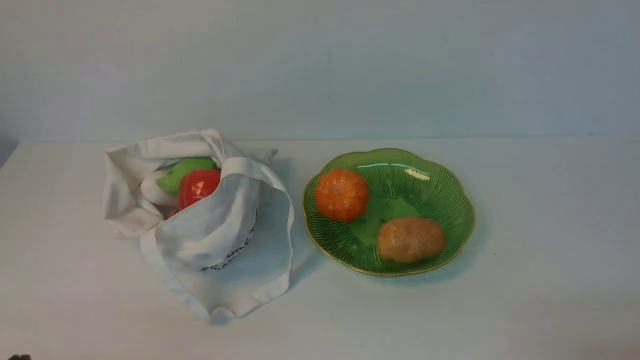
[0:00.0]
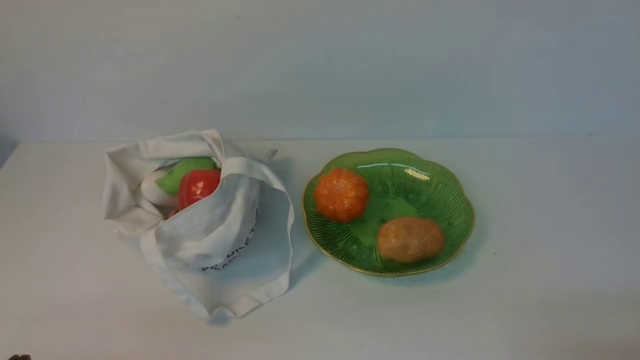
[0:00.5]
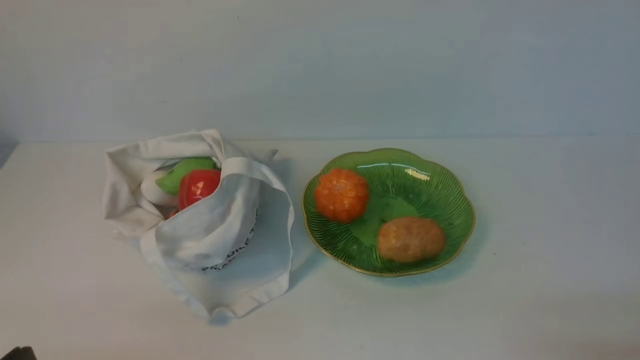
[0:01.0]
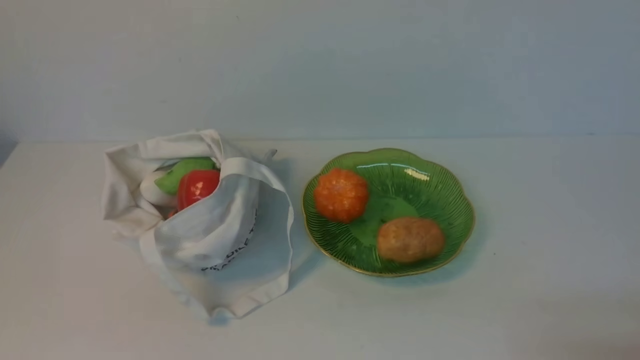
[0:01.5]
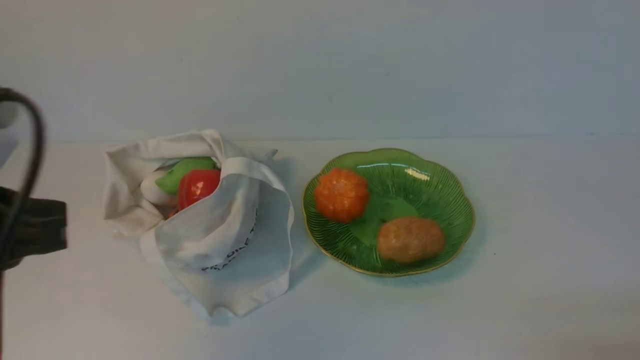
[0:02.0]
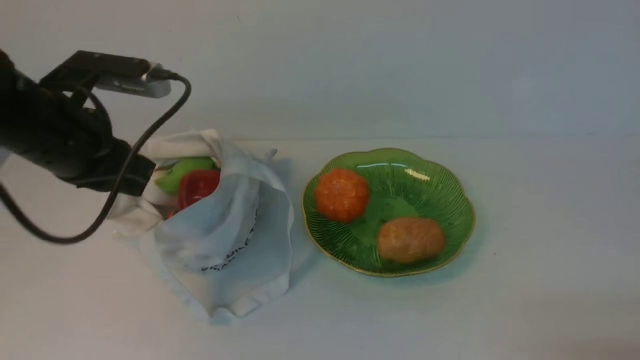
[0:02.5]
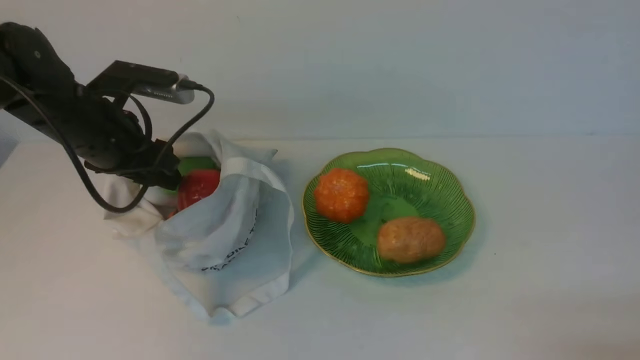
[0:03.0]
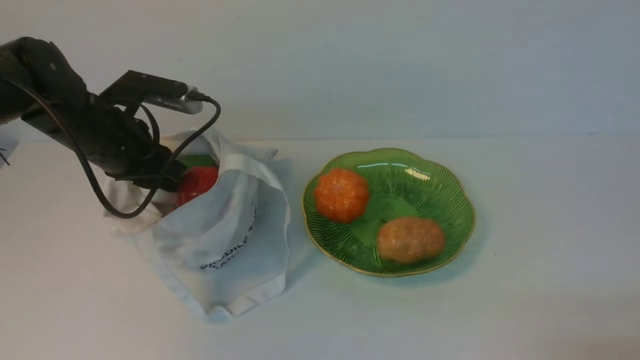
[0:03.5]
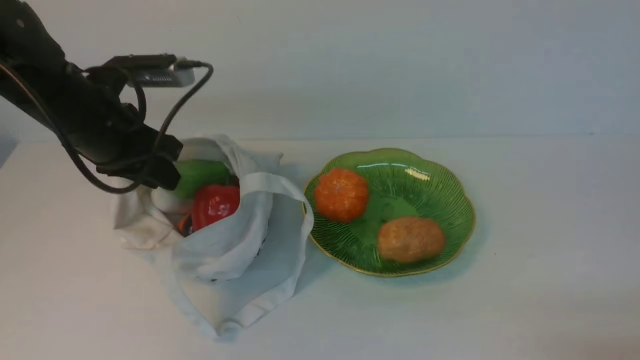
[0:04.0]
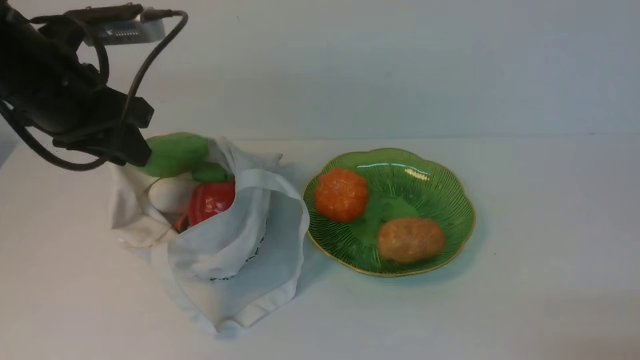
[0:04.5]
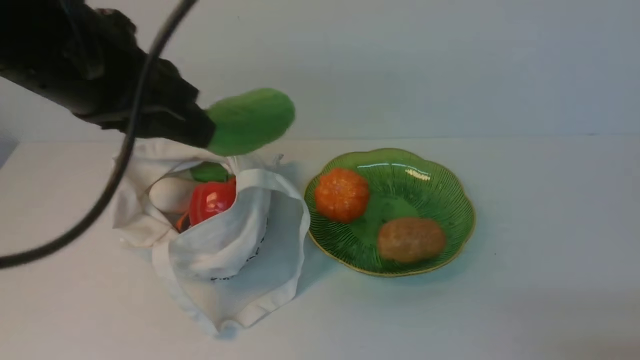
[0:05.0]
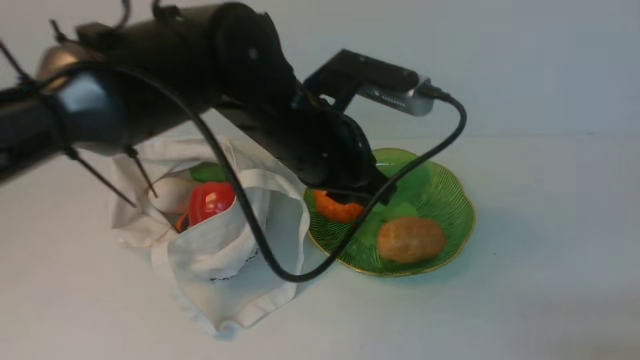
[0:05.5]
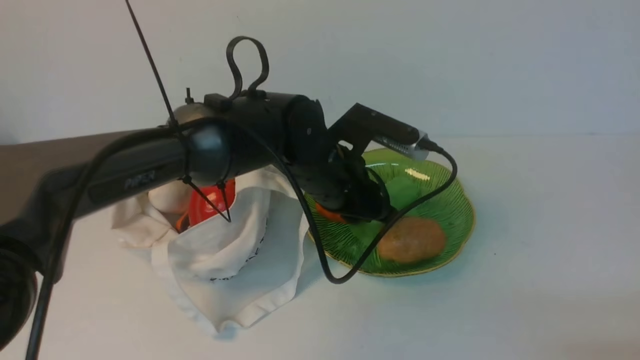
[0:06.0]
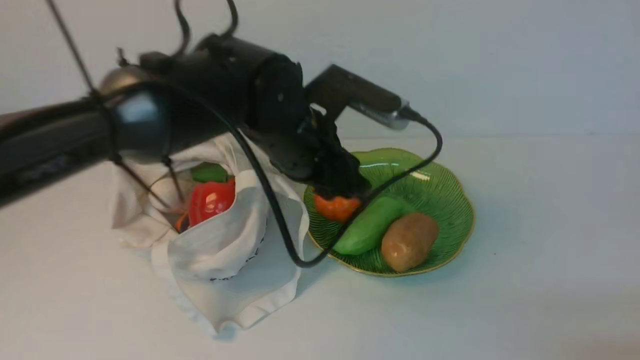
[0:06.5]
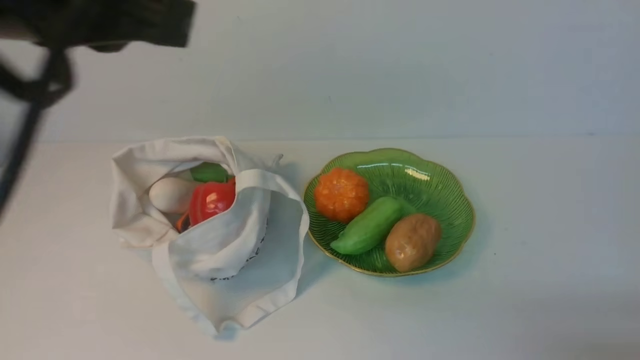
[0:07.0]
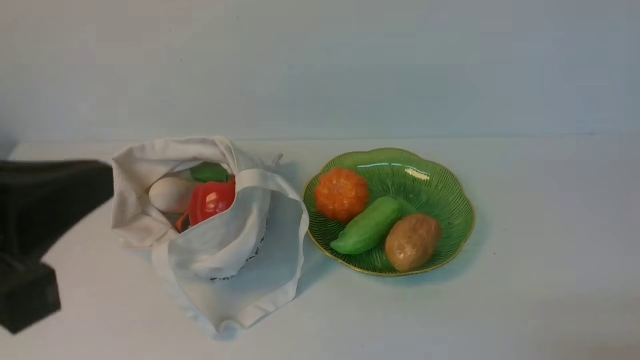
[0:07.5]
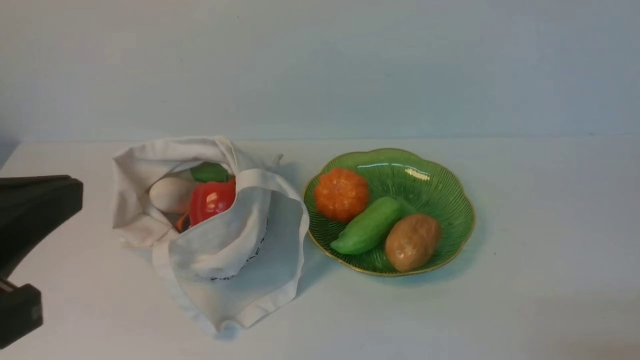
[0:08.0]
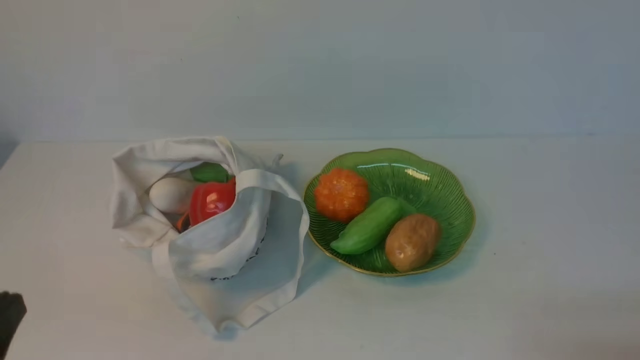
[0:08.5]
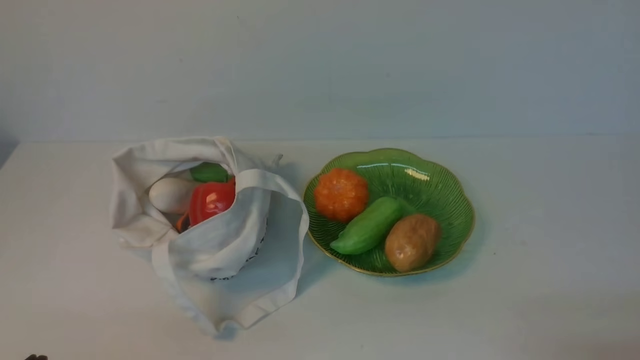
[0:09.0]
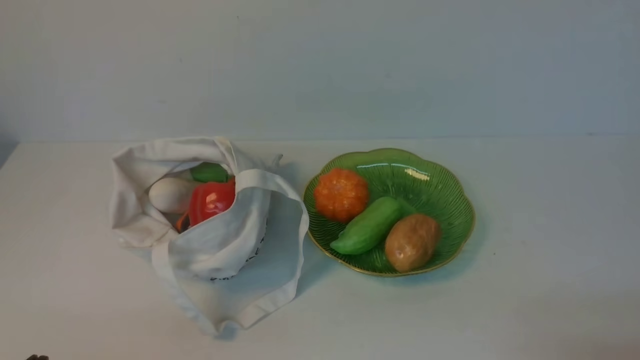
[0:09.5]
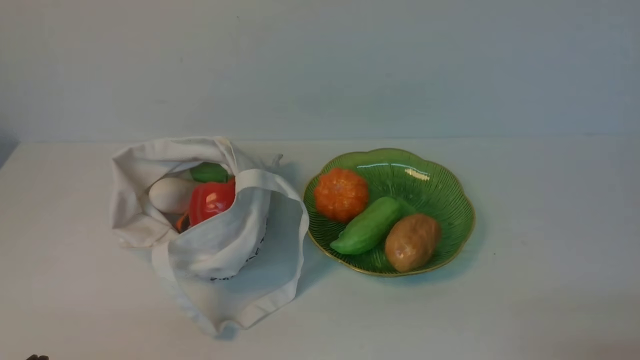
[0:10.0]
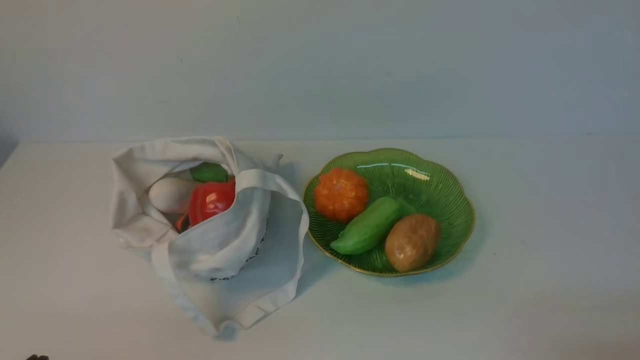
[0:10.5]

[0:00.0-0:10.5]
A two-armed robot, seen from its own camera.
Task of the whole recording: take vegetables from cloth bag on white table place on plate.
Step, 0:00.0 to 0:03.5: Grasp the bitter melon with left gripper.
Step, 0:04.0 to 0:06.5: Place the bitter melon on the plate with left gripper.
0:02.0 to 0:04.0: The left gripper is displaced forward by about 25 cm, and opens its fingers.
0:04.0 to 0:06.5: The left gripper travels to the right by about 20 cm, and opens.
0:06.5 to 0:08.5: The left gripper heads backward and to the left, covering about 35 cm, and closes up.

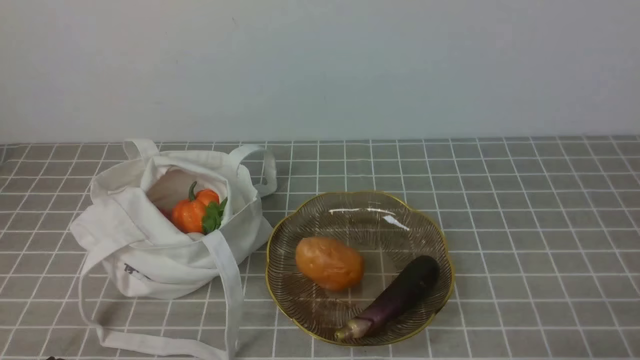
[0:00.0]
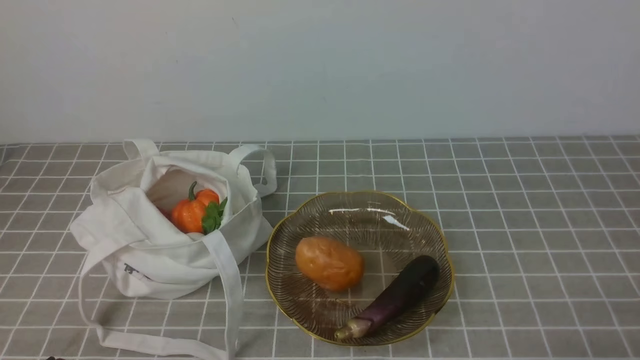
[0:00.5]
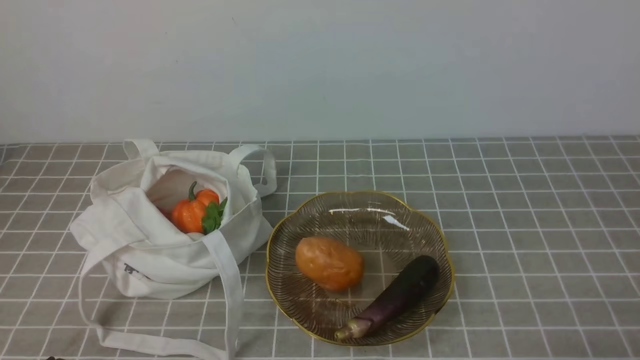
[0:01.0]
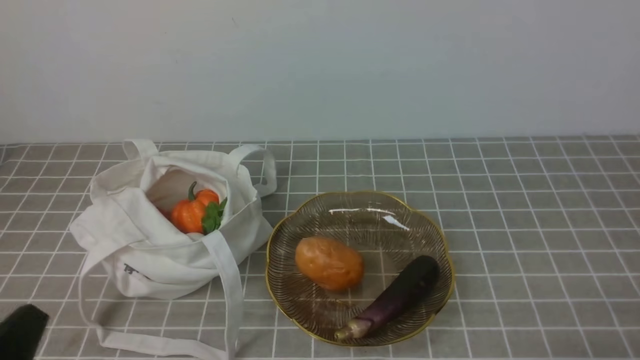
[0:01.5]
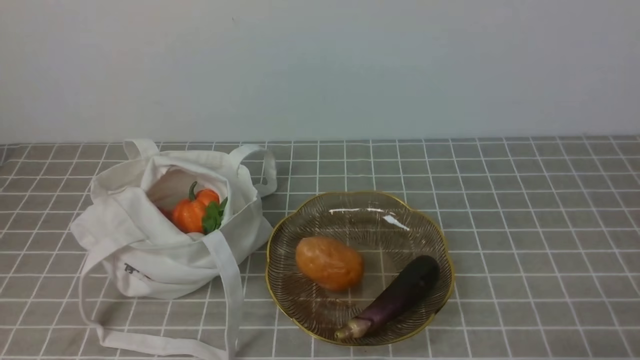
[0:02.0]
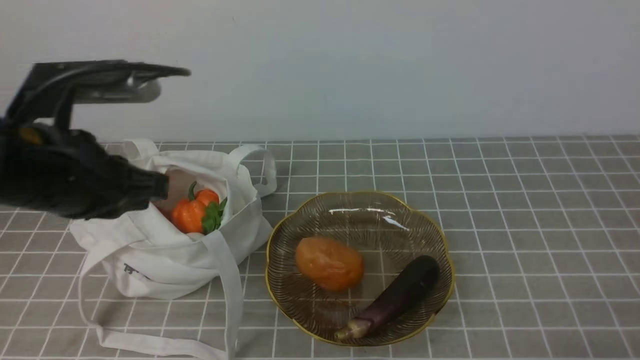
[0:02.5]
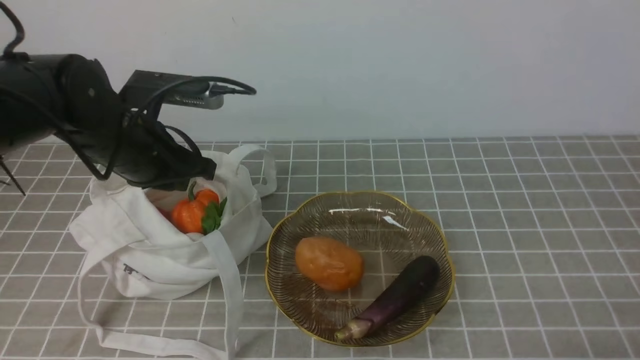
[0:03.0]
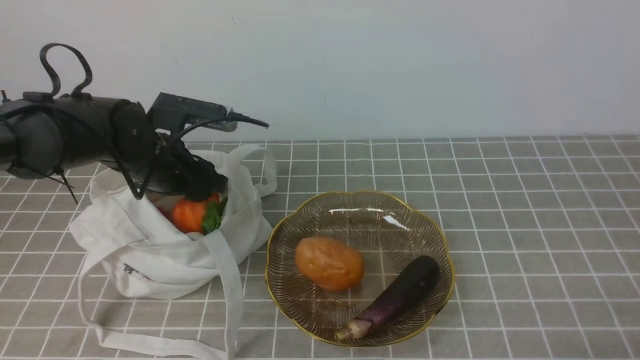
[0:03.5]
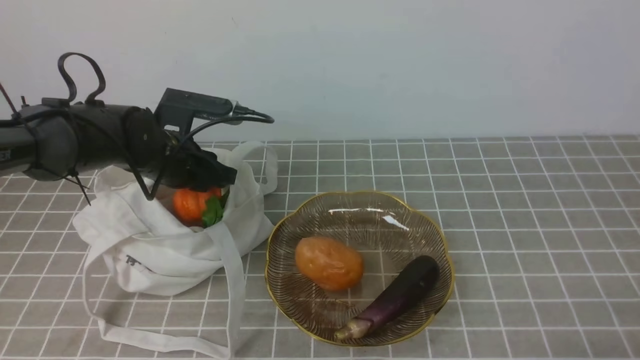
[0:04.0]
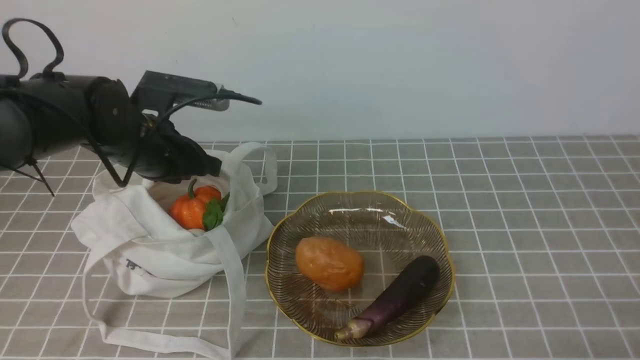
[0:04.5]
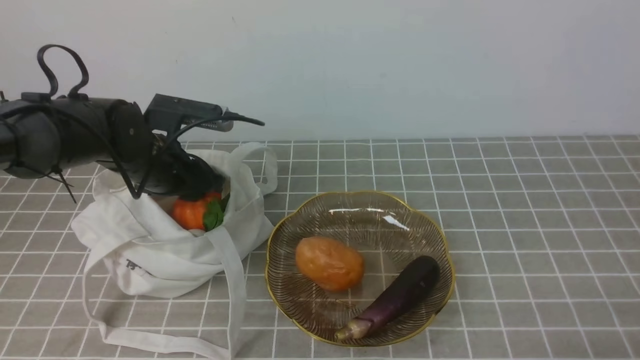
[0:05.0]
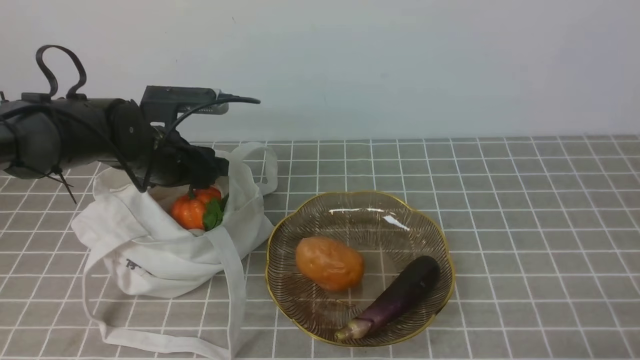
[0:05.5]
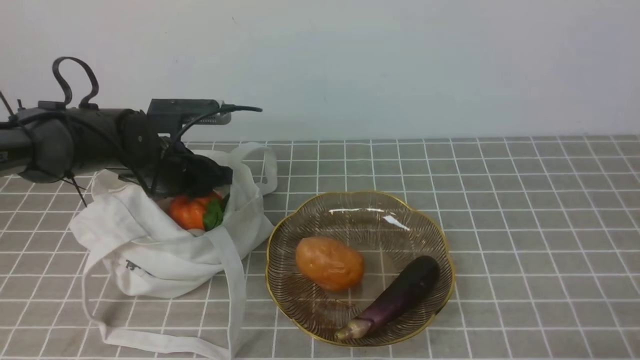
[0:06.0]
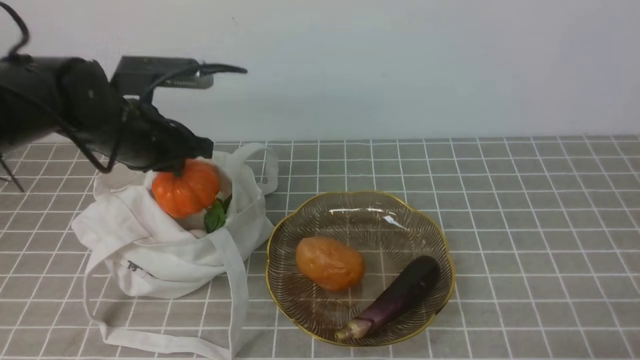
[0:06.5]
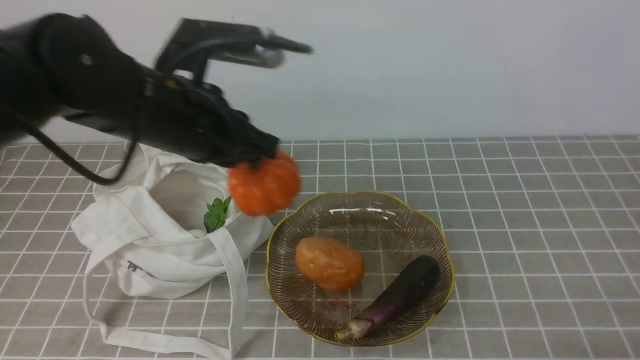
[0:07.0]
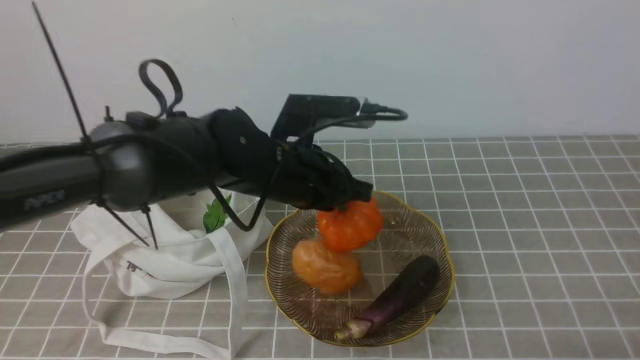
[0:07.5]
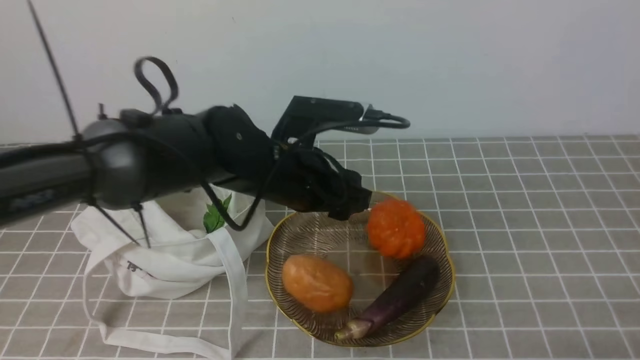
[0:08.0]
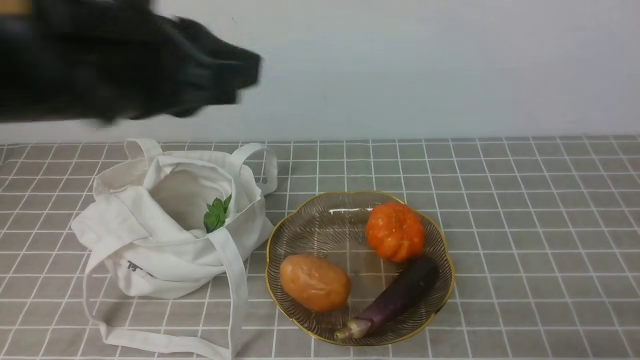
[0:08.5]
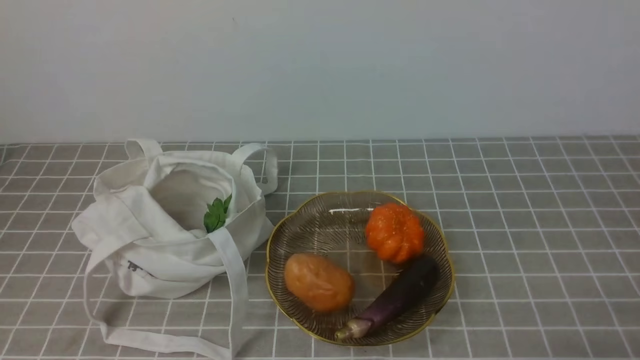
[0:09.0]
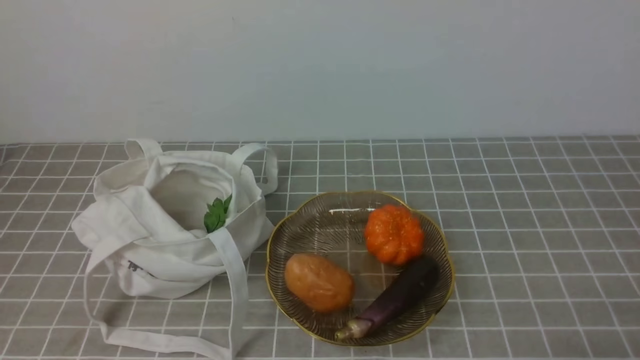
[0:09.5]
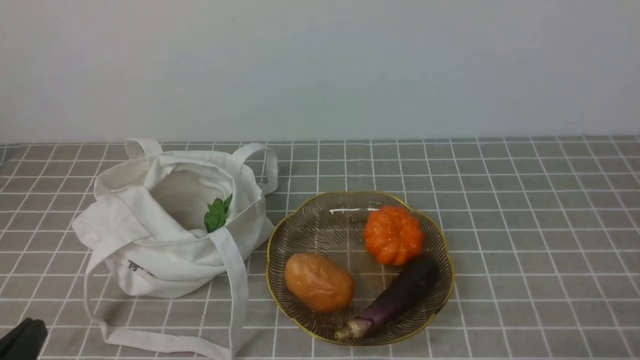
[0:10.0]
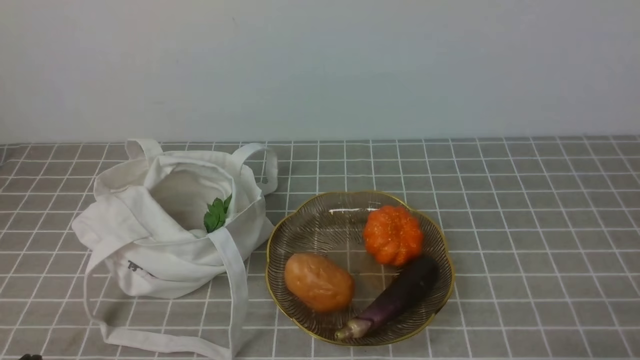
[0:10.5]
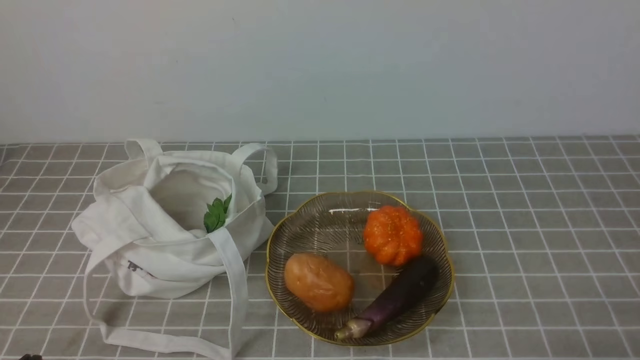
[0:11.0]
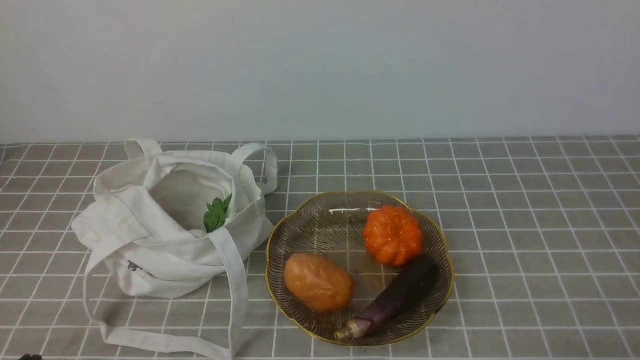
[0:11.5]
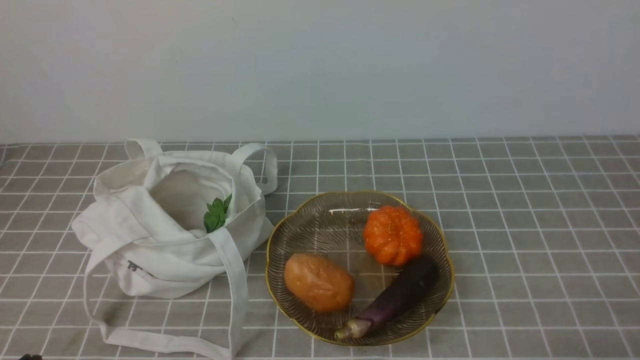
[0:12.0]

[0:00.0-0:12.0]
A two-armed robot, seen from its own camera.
Task of the whole recording: take vegetables from bag on grey coffee tablecloth place on plate.
Step, 0:00.0 to 0:06.0: Grasp the pumpkin with left gripper.
Step, 0:06.5 to 0:08.0: Place the pumpkin on the plate with left gripper.
0:02.0 to 0:04.0: The left gripper moves forward and downward, about 35 cm, and opens.
0:04.0 to 0:06.0: The left gripper closes, then reopens.
0:06.0 to 0:08.0: The left gripper goes some 20 cm to the right, upward and backward, and closes, then opens again.
0:08.0 to 0:10.0: The left gripper is displaced backward and to the left by approximately 35 cm, and closes up.
